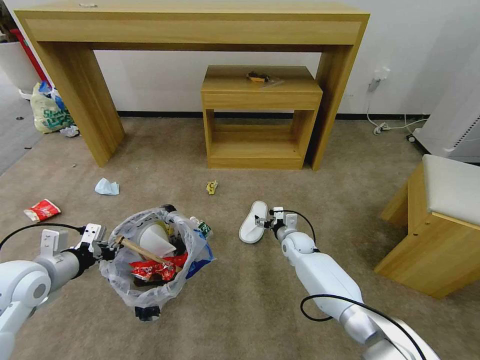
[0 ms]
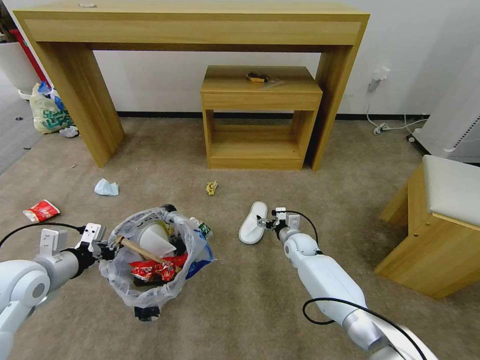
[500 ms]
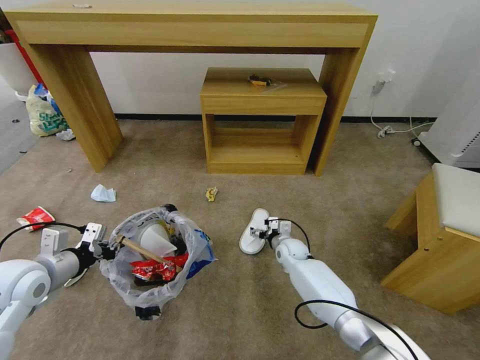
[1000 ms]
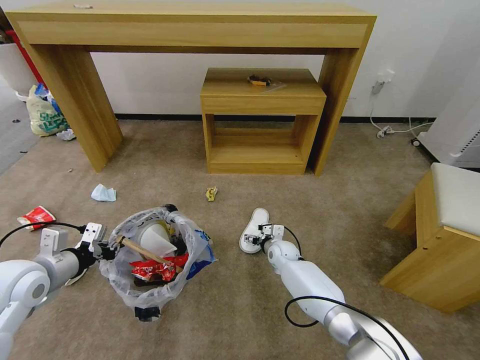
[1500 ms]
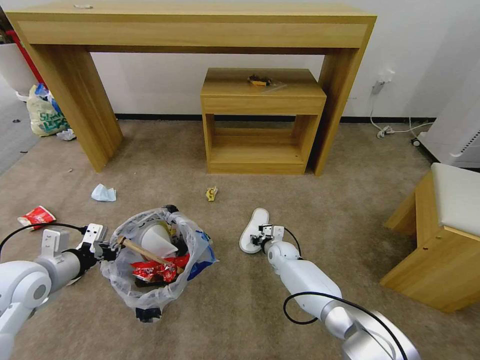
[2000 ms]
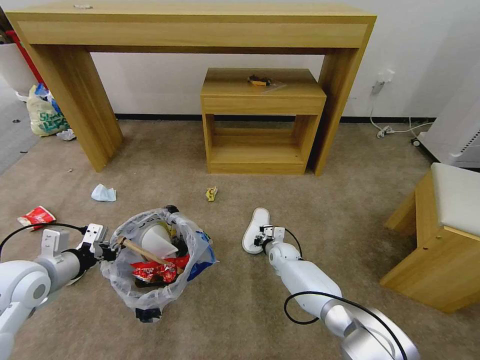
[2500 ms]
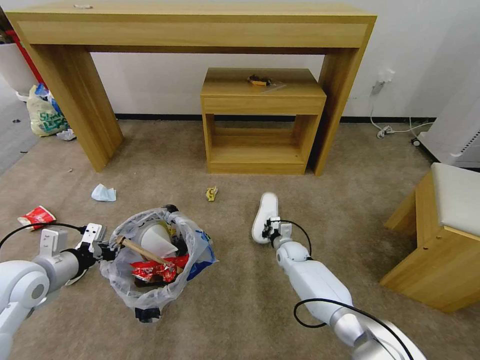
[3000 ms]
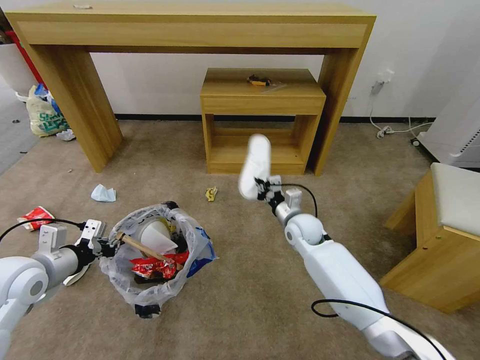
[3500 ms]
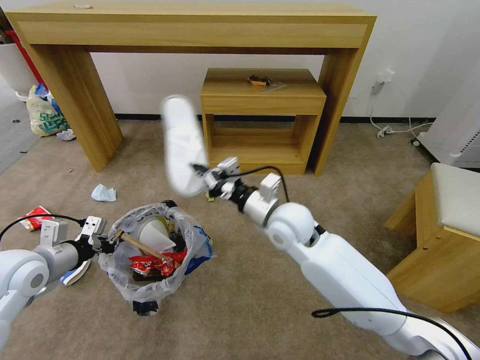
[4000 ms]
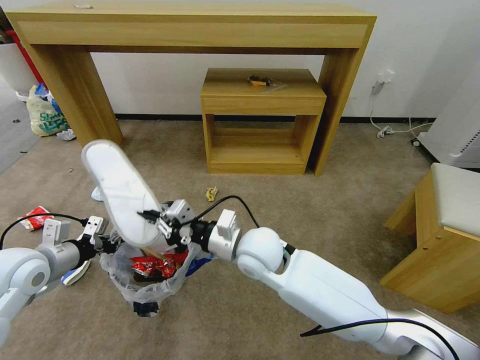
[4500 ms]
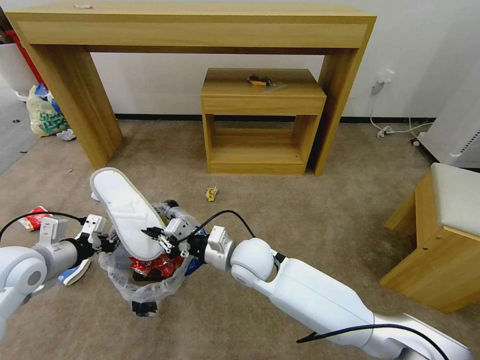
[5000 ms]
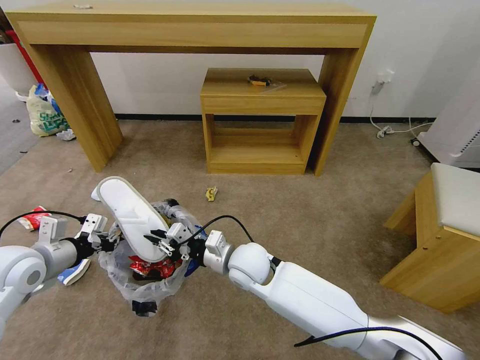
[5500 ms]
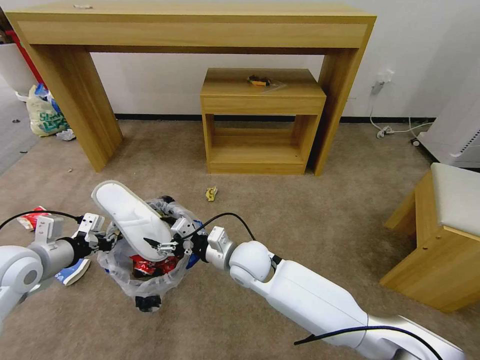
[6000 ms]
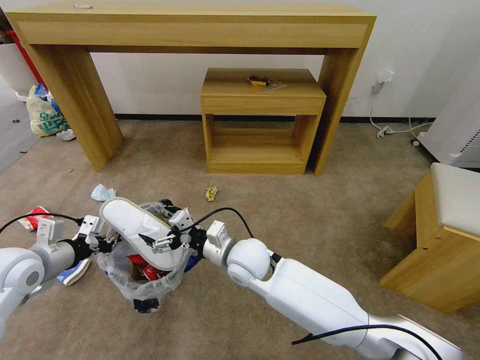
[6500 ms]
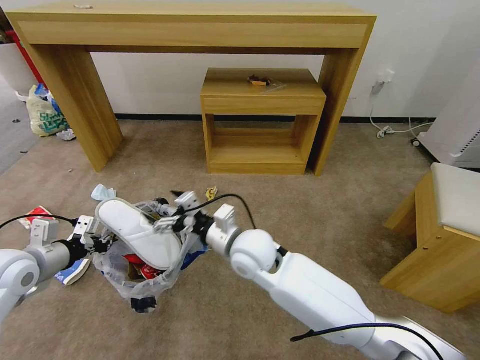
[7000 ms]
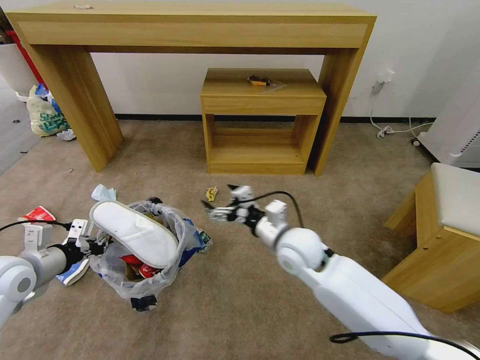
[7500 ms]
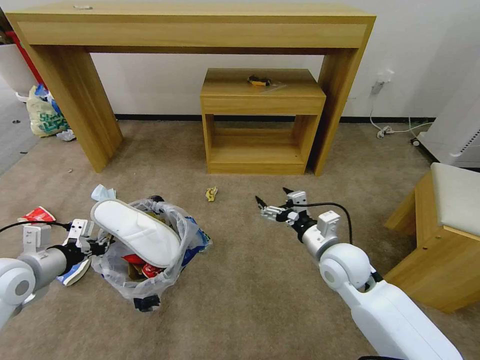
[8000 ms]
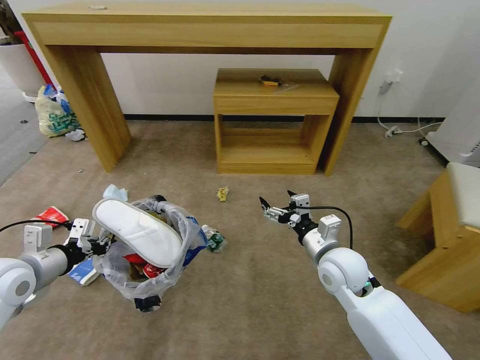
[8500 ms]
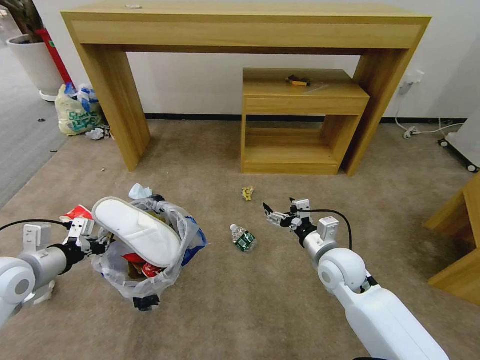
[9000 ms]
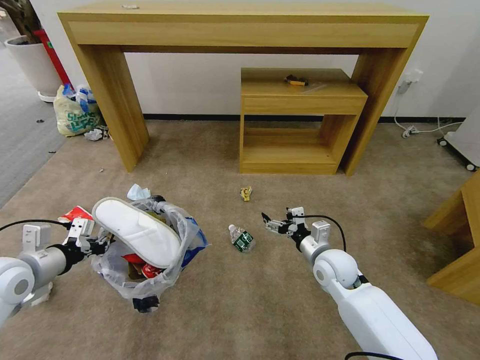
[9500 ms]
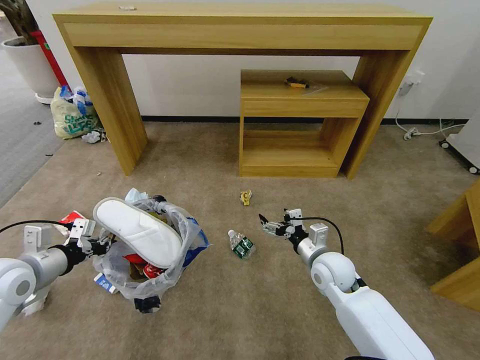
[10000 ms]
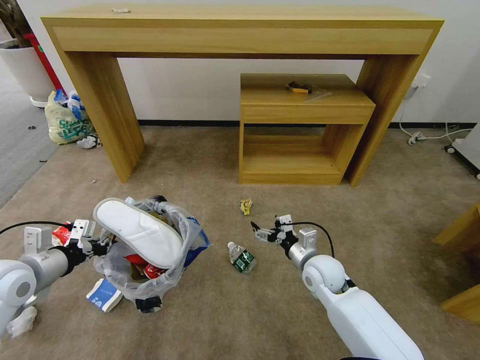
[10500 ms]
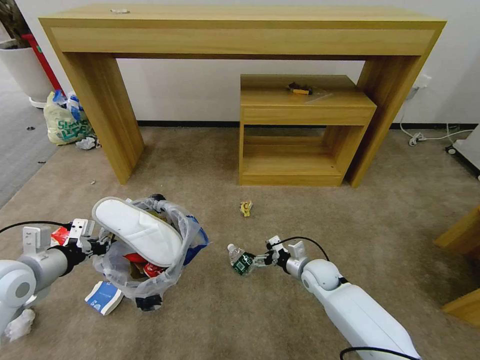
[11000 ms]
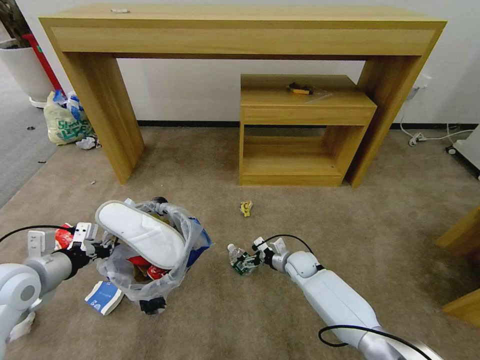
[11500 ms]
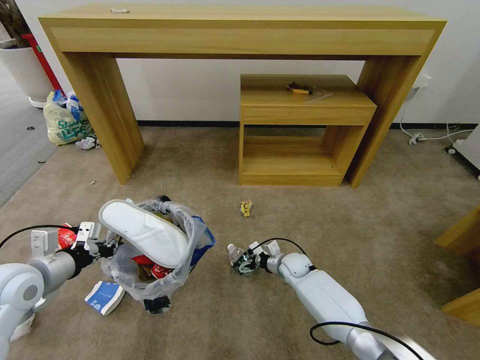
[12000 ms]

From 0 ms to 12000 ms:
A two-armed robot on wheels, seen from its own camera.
Task of the whole recording: Pick up the trash bin and place the garbage on the floor into it.
From 0 ms to 2000 ms: The right gripper ends up about 5 cm from where it was, and closes up.
From 2000 ms to 4000 ms: The right gripper shifts about 30 cm upward, and closes its fingers.
From 4000 ms to 6000 ms: The right gripper shifts about 15 cm downward and to the left, and opens.
From 6000 ms to 8000 ms: The right gripper travels to the right by approximately 20 cm.
From 8000 ms to 10000 ms: The right gripper heads downward, covering approximately 5 cm.
From 10000 ms to 12000 ms: The right gripper moves downward and forward, about 20 cm.

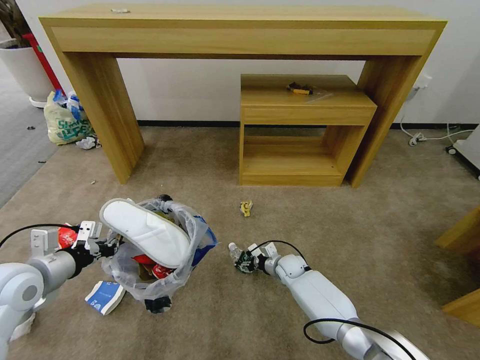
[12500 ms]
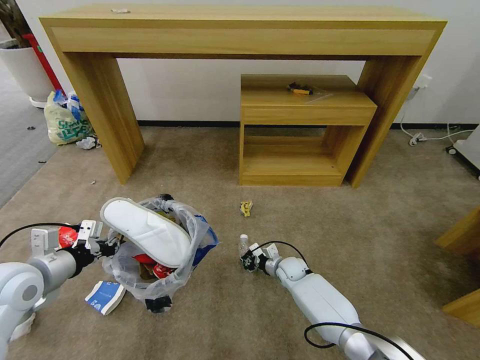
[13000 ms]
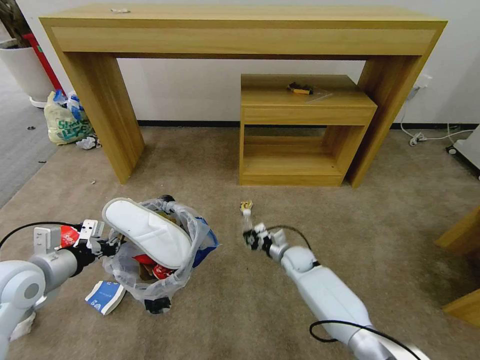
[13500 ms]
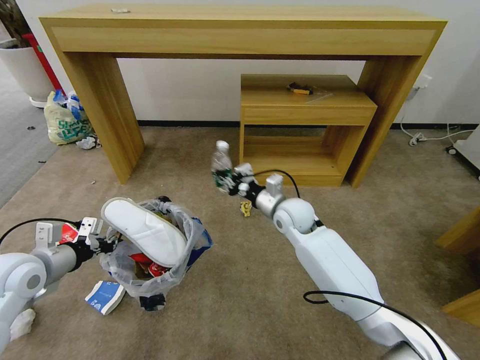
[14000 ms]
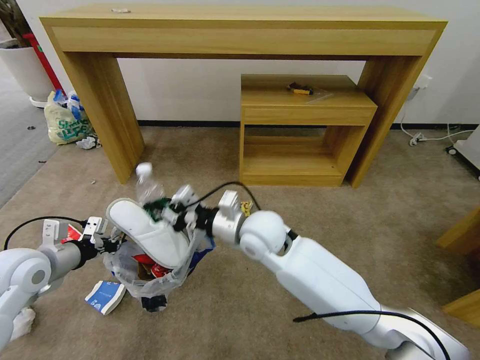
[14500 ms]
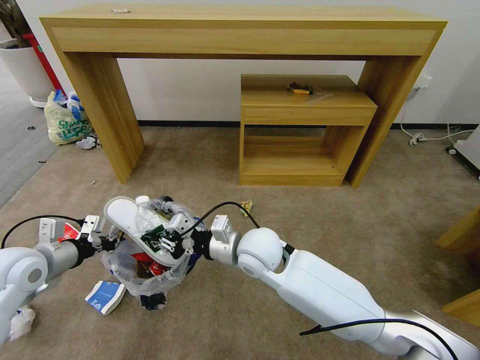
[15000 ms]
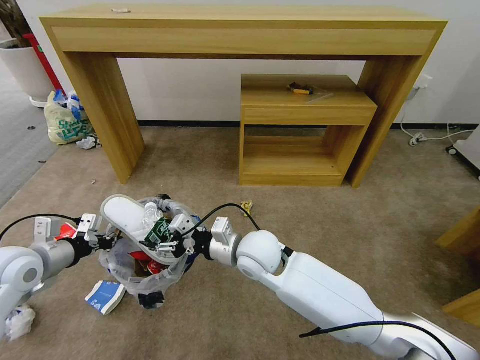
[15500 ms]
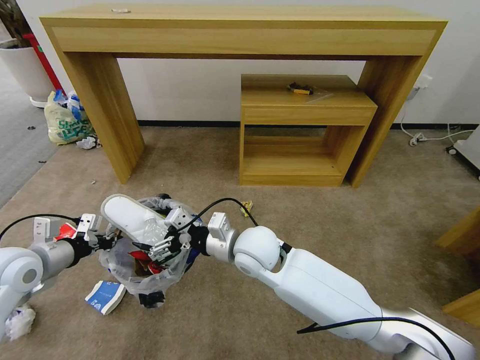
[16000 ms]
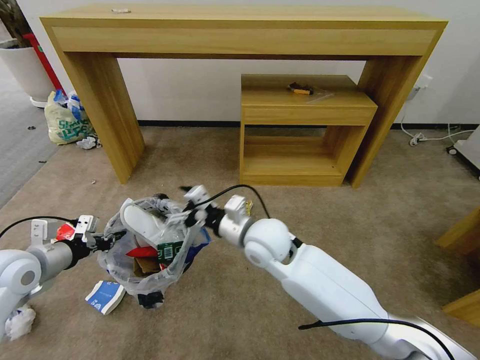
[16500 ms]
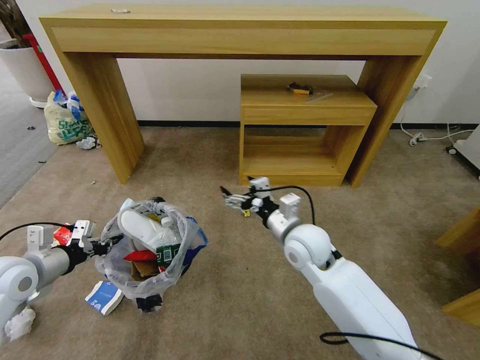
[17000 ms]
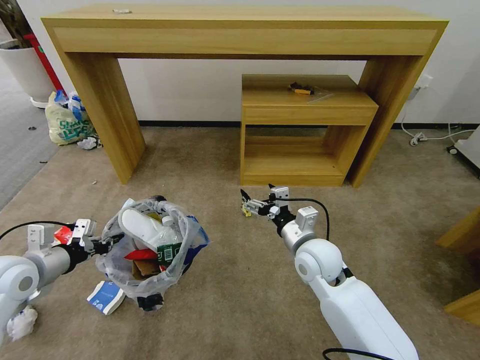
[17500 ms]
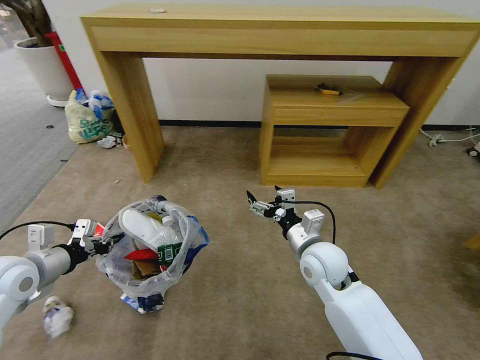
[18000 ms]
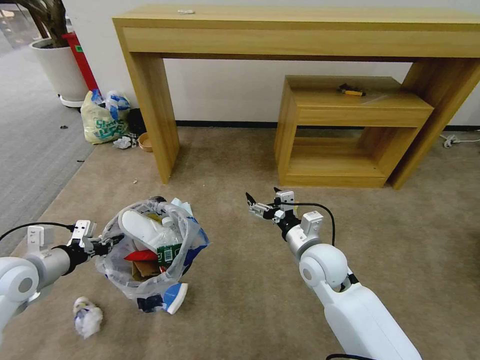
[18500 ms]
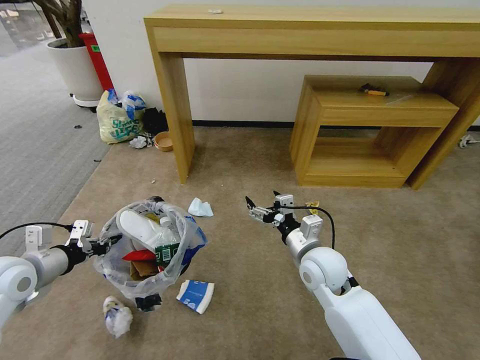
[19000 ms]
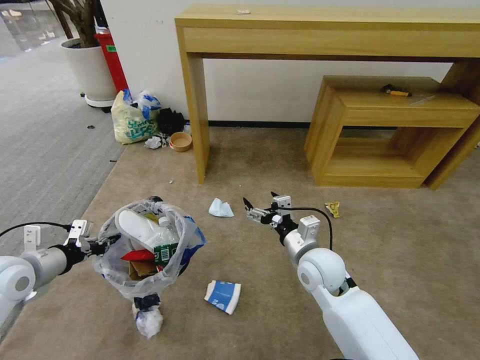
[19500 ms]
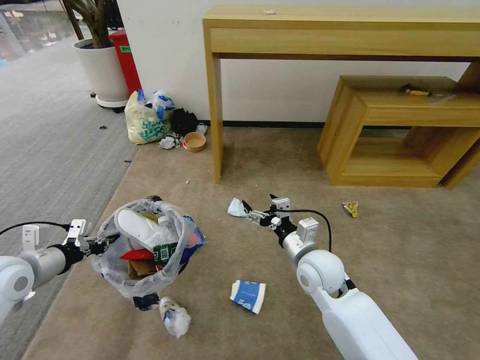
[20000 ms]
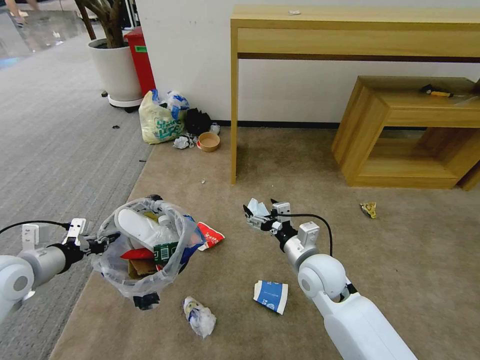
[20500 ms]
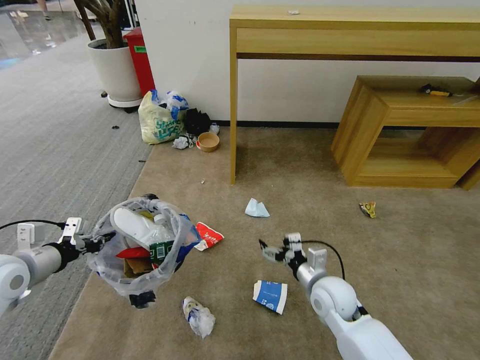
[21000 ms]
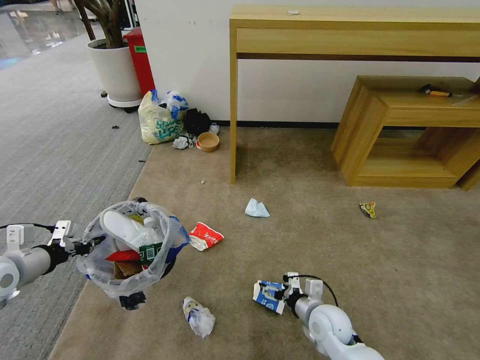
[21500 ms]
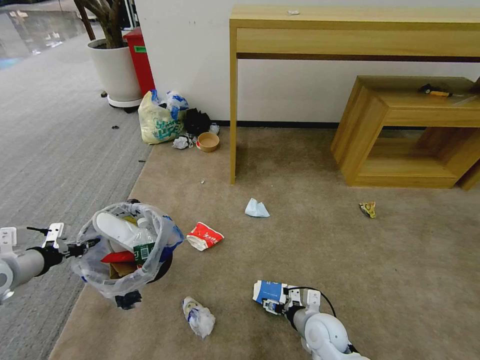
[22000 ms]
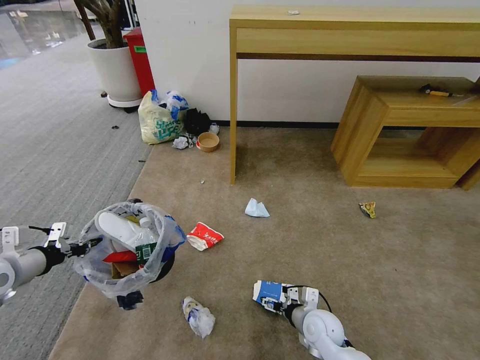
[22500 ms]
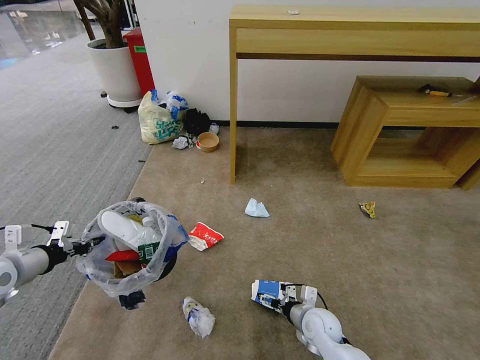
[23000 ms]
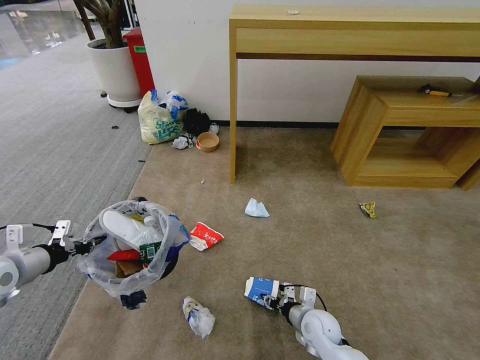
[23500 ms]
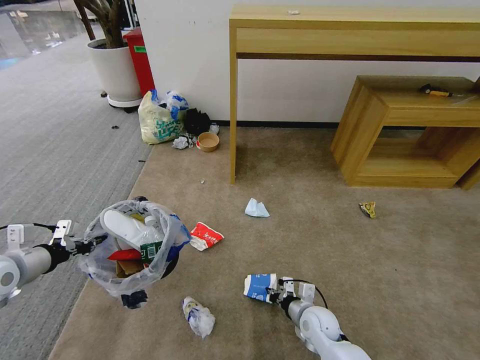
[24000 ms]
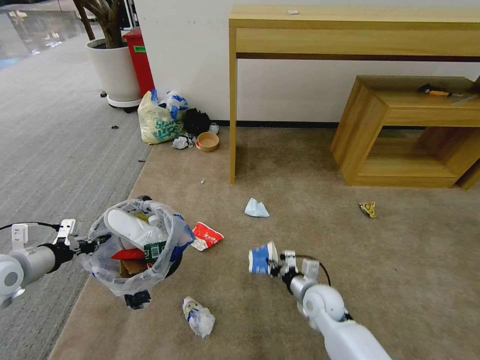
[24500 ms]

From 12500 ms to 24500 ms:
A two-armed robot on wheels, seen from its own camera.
Task of the whole recording: Pick up the trash bin and place the garbage on the floor into it.
From 12500 ms to 14500 ms: The right gripper moves upward and to the left, roughly 35 cm, and closes.
From 14500 ms to 16500 ms: The right gripper opens its fingers.
From 16500 ms to 18500 ms: The right gripper heads to the right and downward, covering about 15 cm.
From 20500 ms to 22500 ms: The left gripper travels to the left by approximately 5 cm, while the right gripper heads downward and backward, covering approximately 15 cm.
From 22500 ms to 24500 ms: The right gripper changes place by some 5 cm, and closes its fingers.

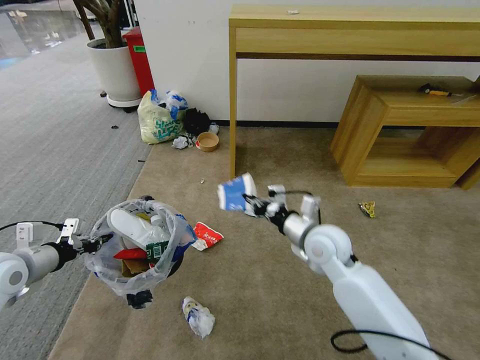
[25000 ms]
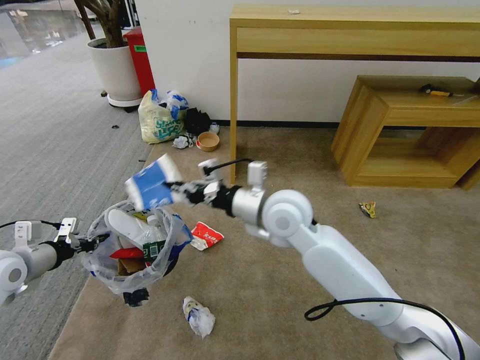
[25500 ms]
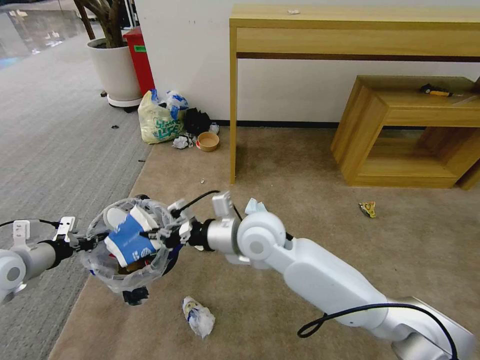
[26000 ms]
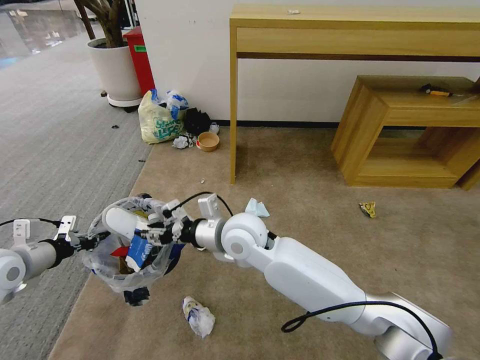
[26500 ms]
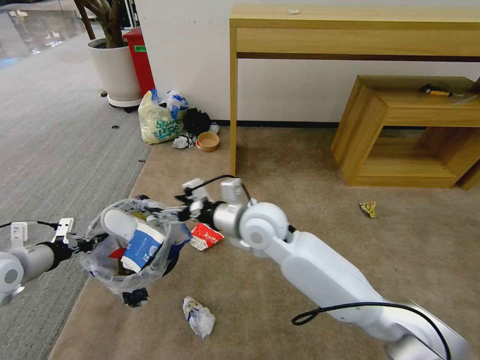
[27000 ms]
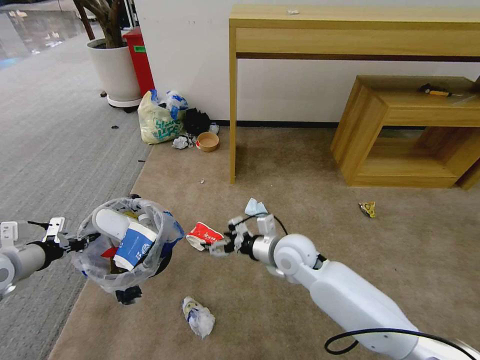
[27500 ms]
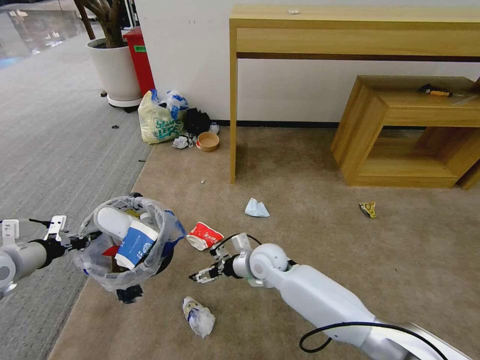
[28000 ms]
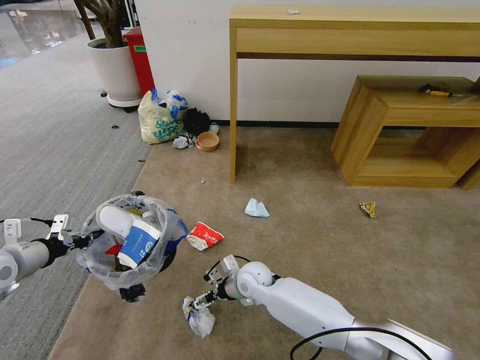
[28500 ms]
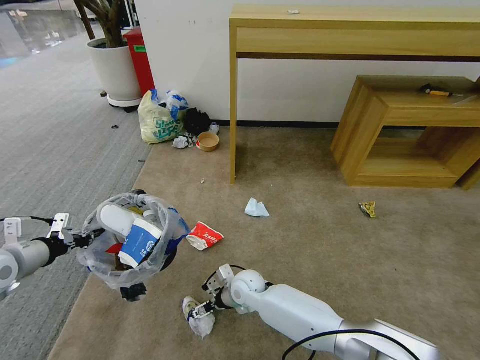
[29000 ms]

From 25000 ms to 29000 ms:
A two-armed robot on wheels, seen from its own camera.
Task of the whole recording: Pick up the trash bin and place the garbage on the floor into it.
From 25000 ms to 27000 ms: The right gripper travels upward and to the left by some 30 cm, and opens up.
From 27000 ms to 29000 ms: The right gripper goes approximately 20 cm downward.
